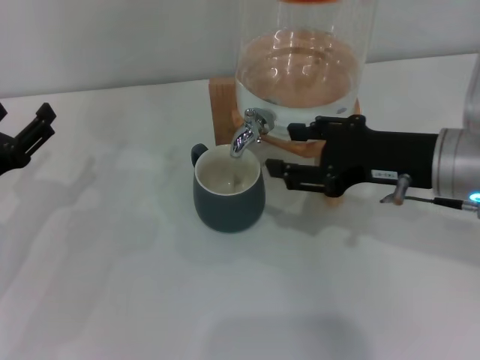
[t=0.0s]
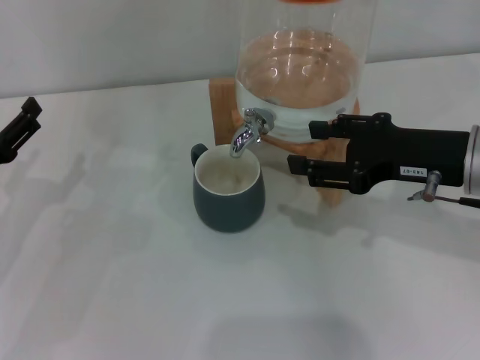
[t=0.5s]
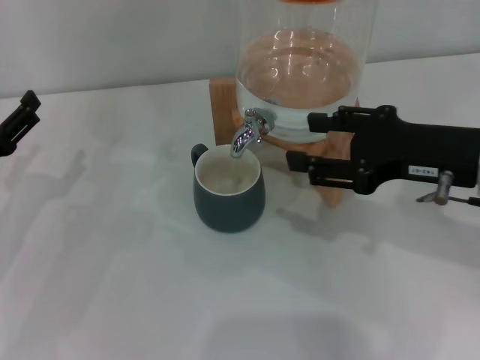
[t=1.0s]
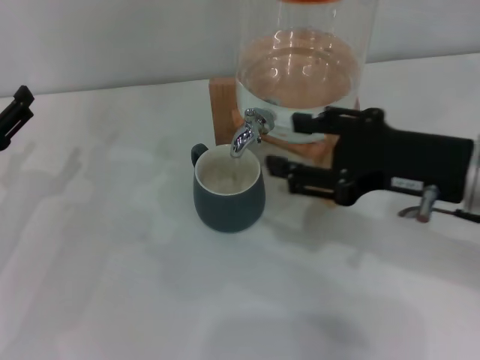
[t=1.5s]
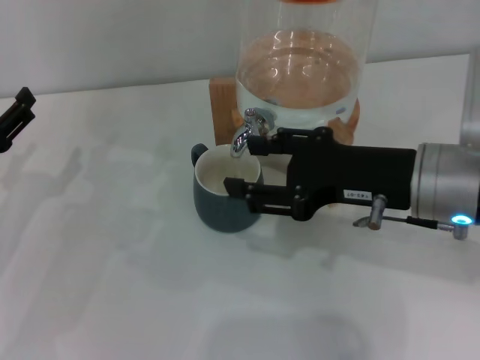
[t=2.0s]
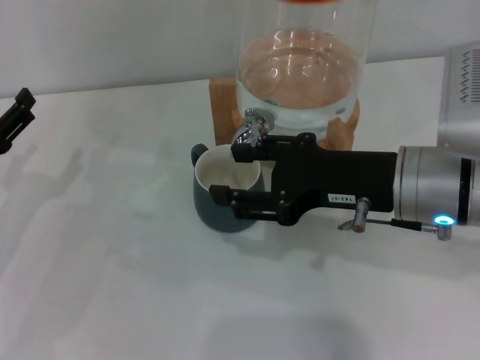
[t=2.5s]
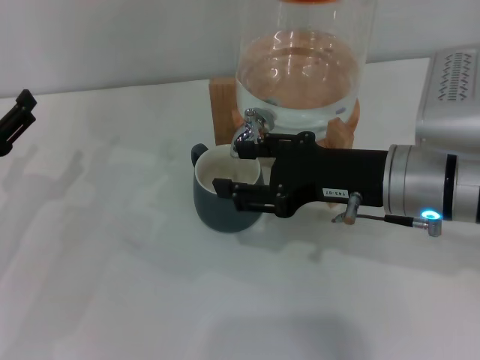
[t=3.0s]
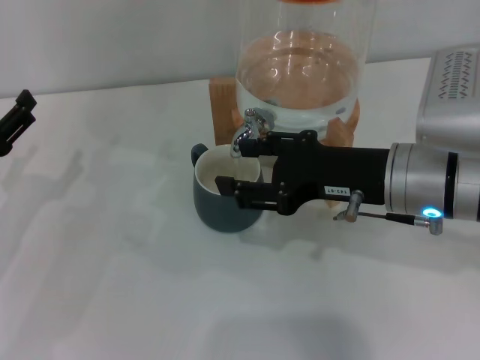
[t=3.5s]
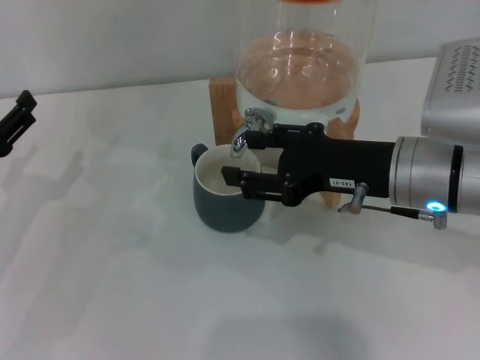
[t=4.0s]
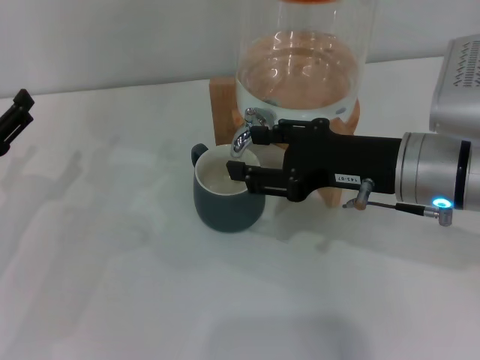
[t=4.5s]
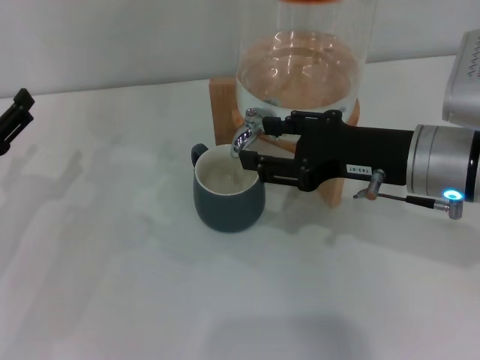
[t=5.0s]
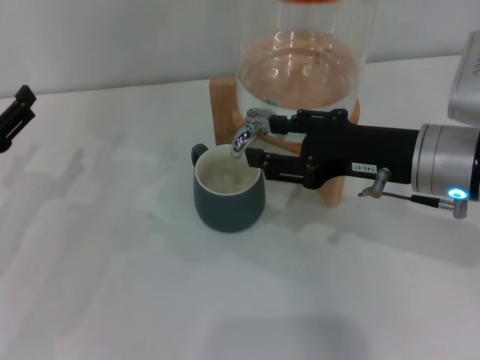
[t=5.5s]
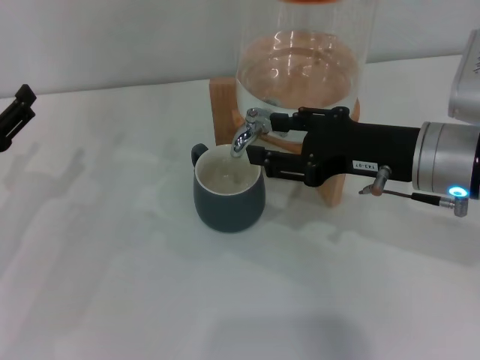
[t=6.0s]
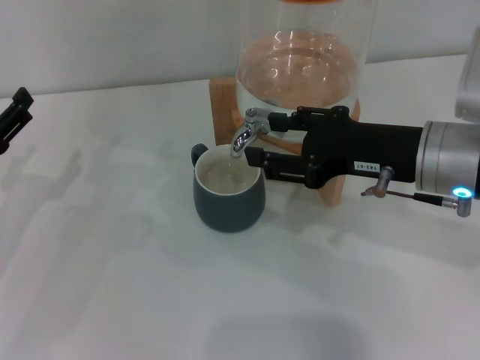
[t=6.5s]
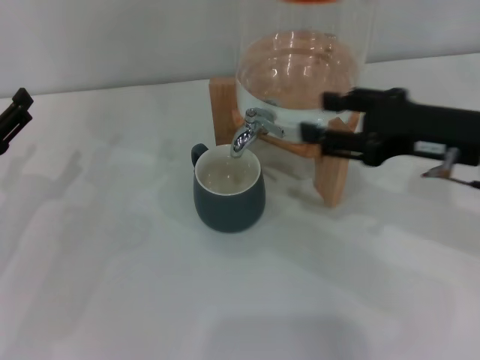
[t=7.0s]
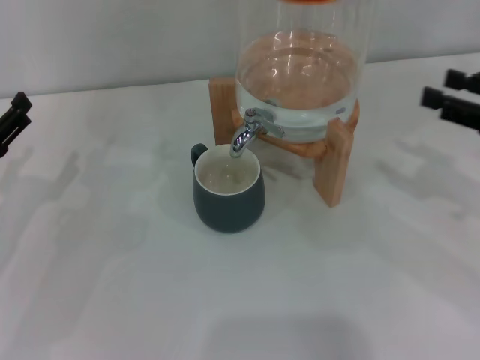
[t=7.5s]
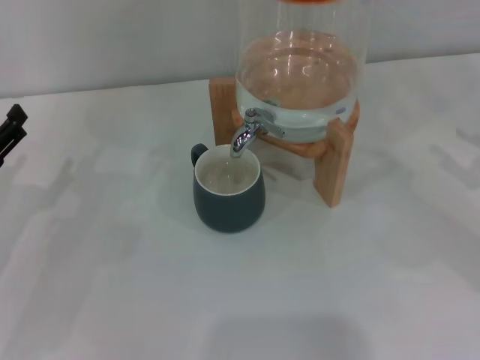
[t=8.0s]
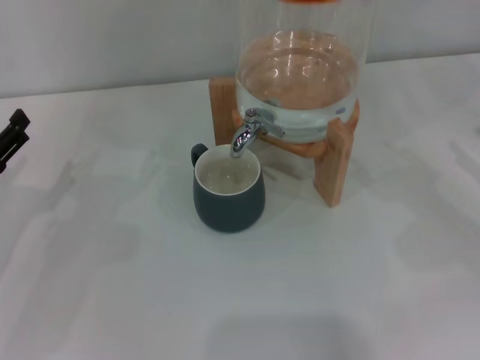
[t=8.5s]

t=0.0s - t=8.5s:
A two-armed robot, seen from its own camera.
Task of the whole recording: the left gripper pick up the black cup and place it horizontally under the faucet, the right gripper turn on the faucet to fill the cup, and then turn off the faucet.
Step, t=0.5s - t=6.5s: Close the dispenser valve with the right gripper.
t=0.0s - t=6.5s: The grippers move only a little.
t=6.5s - t=8.5s: The right gripper moves to the right, some 20 cm.
